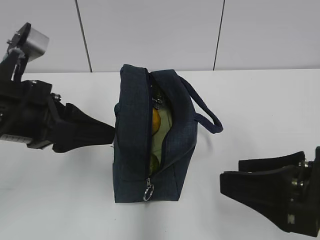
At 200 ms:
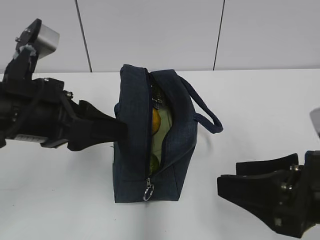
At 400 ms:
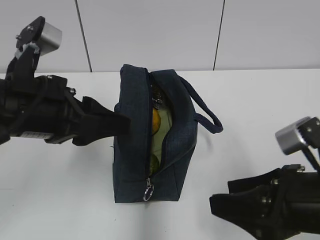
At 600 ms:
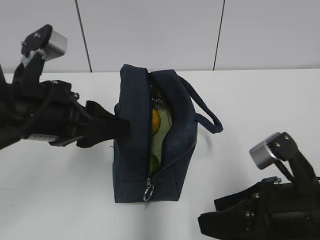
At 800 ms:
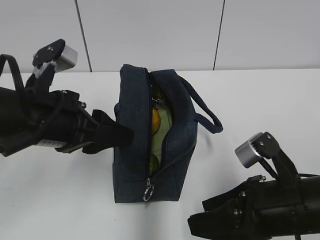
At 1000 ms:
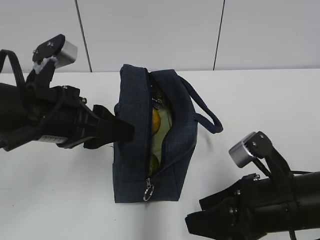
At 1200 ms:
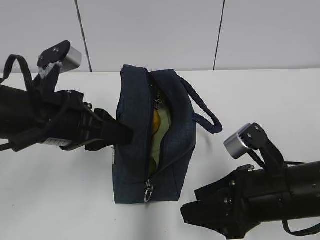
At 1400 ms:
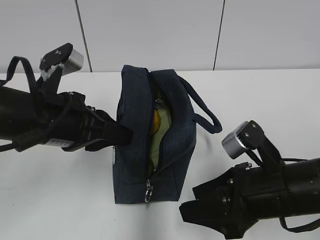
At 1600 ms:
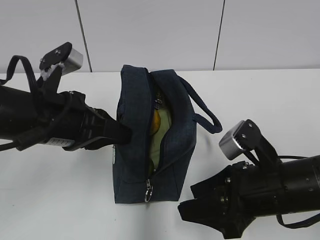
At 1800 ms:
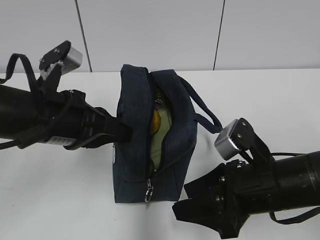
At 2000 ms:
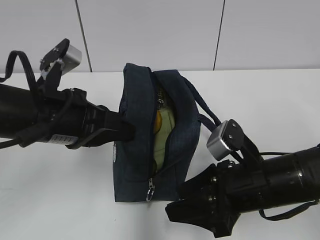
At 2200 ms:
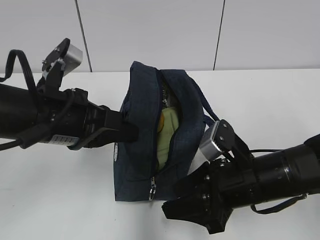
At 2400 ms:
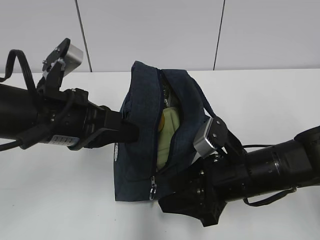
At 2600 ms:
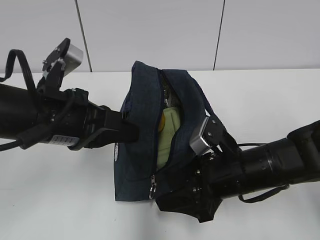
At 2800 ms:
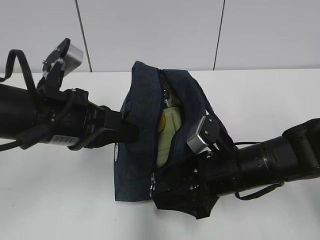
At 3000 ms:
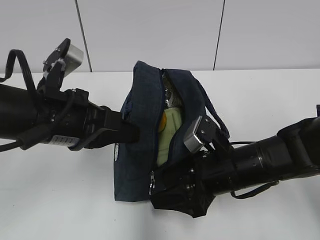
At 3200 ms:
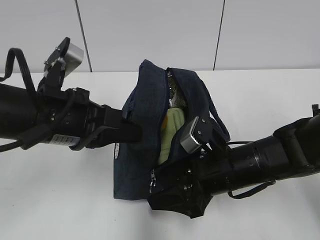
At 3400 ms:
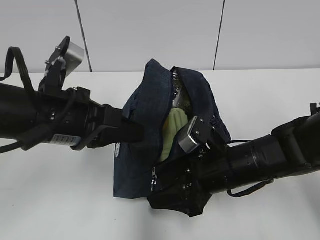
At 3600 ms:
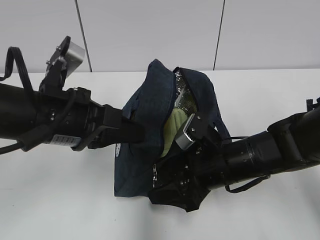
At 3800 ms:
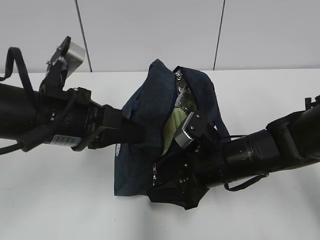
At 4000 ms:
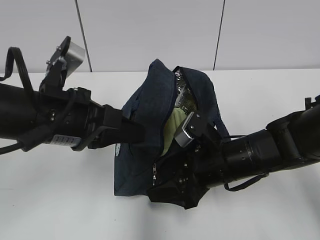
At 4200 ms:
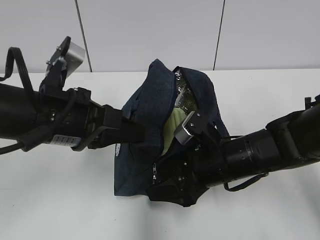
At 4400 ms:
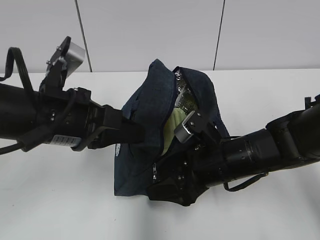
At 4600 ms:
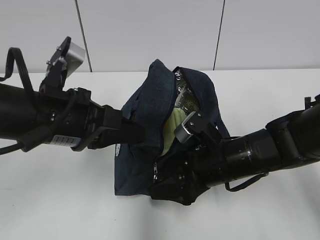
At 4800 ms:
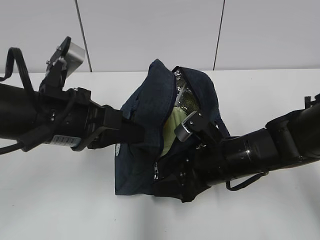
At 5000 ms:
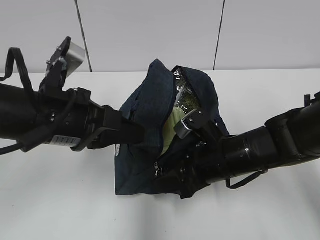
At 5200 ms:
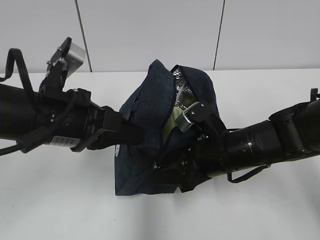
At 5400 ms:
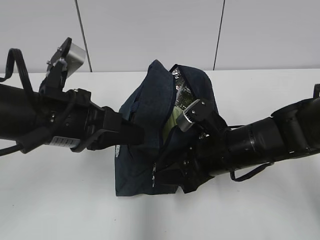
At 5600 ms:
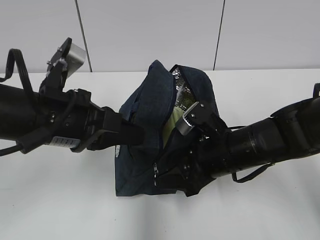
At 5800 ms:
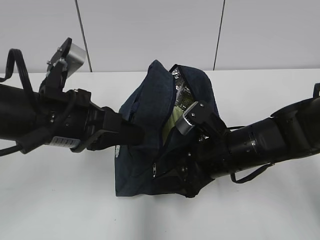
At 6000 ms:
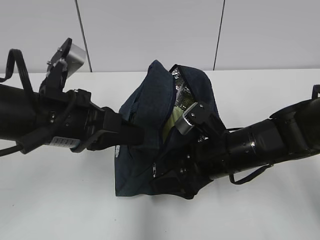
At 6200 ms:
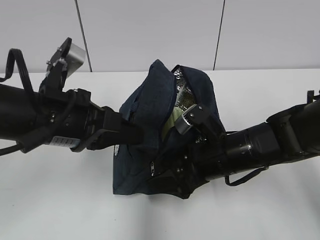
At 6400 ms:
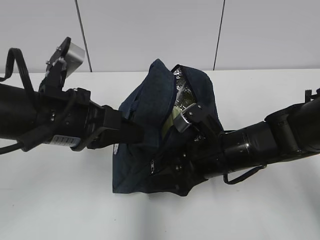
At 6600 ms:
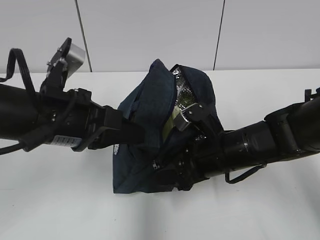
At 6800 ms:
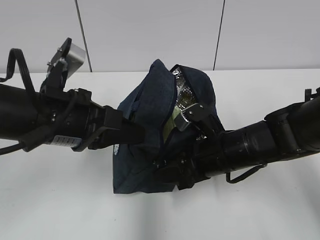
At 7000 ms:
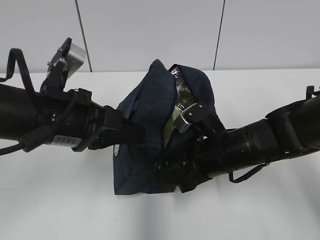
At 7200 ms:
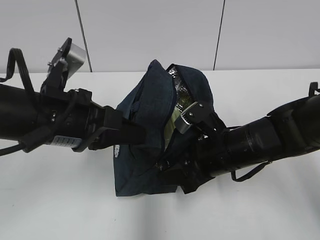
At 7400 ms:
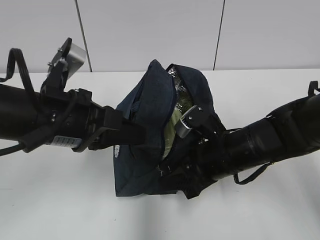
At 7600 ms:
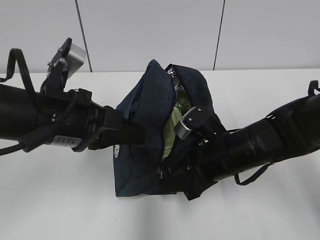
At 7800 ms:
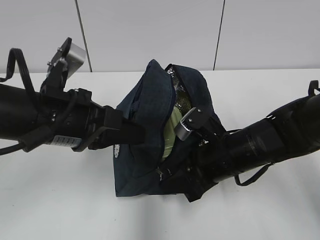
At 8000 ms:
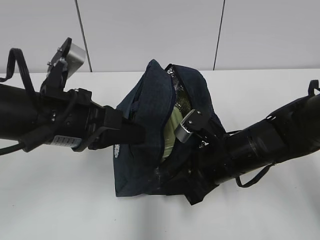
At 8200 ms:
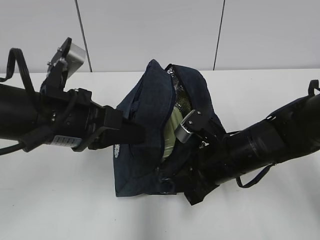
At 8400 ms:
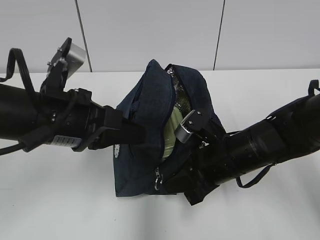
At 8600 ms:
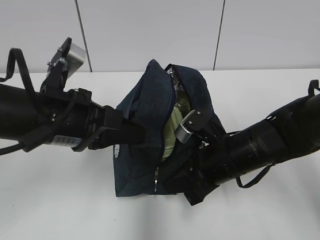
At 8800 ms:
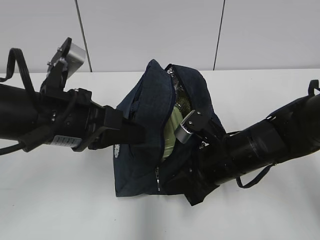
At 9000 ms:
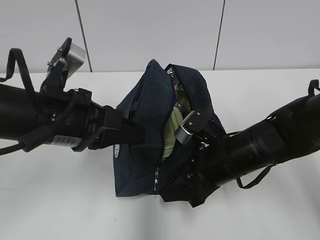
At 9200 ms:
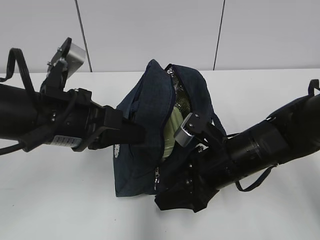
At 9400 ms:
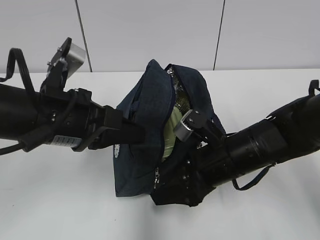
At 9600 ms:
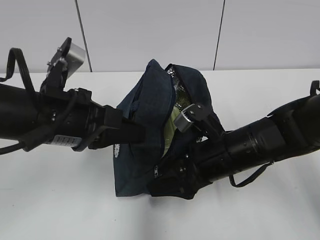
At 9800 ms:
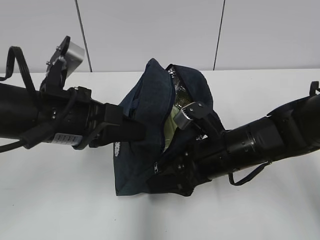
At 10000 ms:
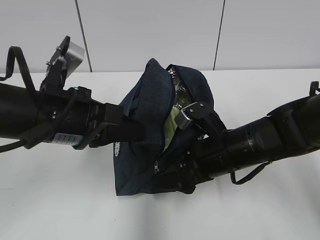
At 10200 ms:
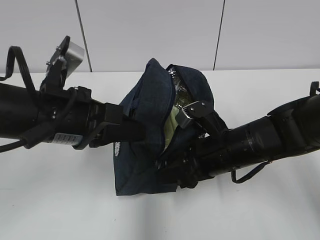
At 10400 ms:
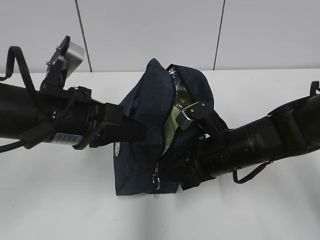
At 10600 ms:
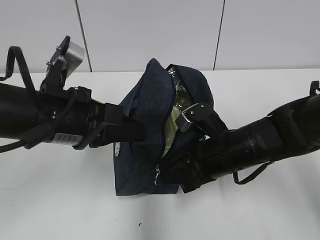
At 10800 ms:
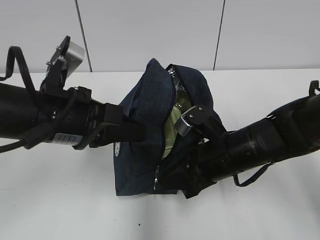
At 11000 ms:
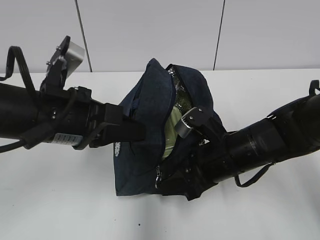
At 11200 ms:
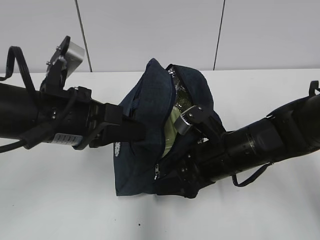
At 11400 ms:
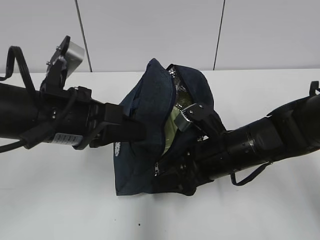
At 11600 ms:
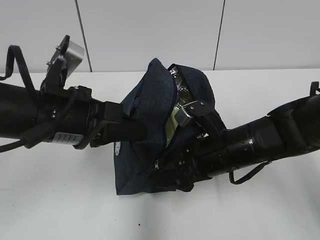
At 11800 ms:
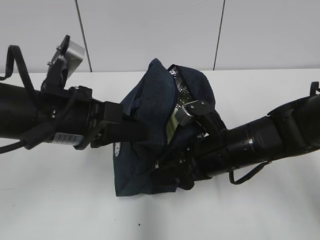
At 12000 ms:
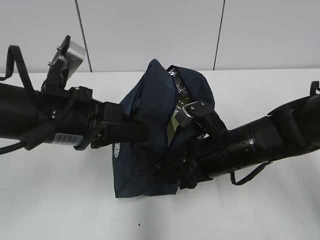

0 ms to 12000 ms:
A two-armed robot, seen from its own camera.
0 ms to 1600 ms: The left gripper closes its fingers. Meanwhile the right gripper travels downward and forward by some 10 cm.
1600 ms to 3000 ms: The right gripper shifts some 5 cm forward.
3000 ms to 6000 ms: The grippers make only small movements.
6000 ms to 7600 ms: The right gripper closes its fingers.
7600 ms to 9000 ms: The right gripper closes, then opens again.
9000 ms to 10400 ms: The grippers move only a little.
10400 ms to 12000 ms: The right gripper opens, then closes once more.

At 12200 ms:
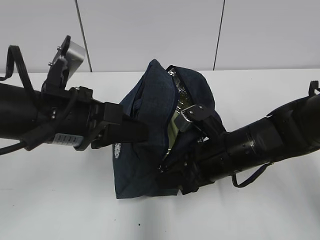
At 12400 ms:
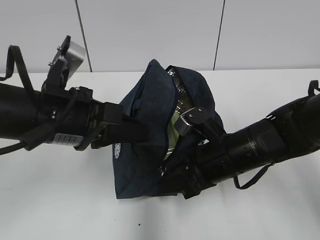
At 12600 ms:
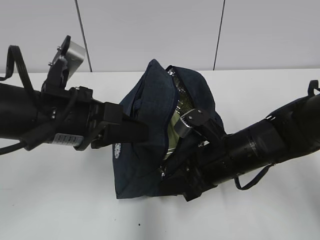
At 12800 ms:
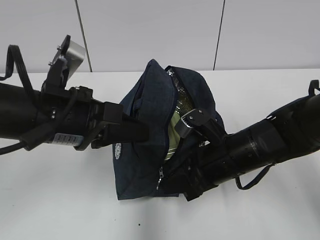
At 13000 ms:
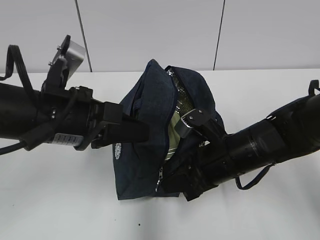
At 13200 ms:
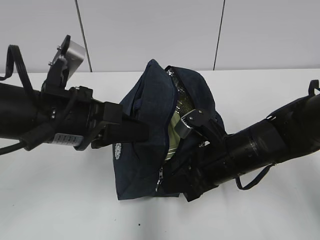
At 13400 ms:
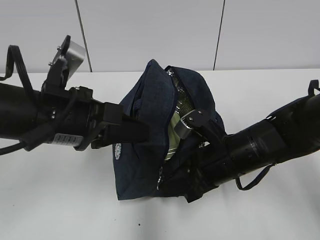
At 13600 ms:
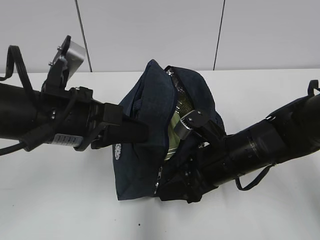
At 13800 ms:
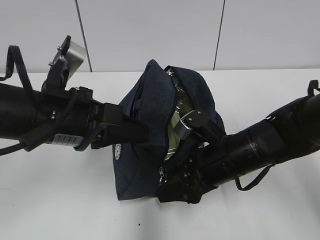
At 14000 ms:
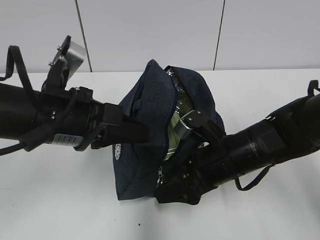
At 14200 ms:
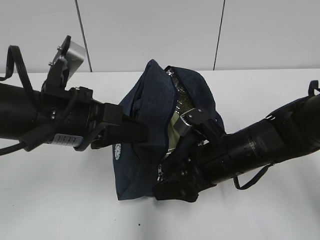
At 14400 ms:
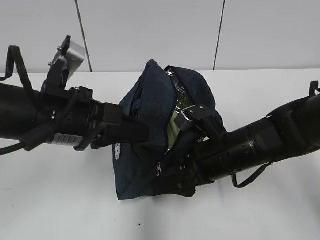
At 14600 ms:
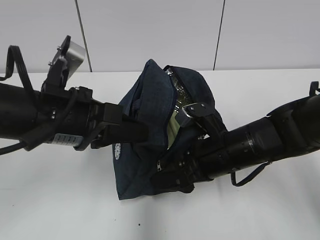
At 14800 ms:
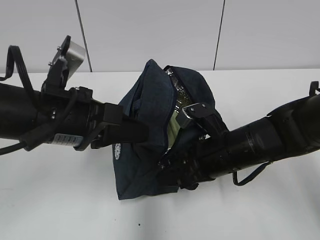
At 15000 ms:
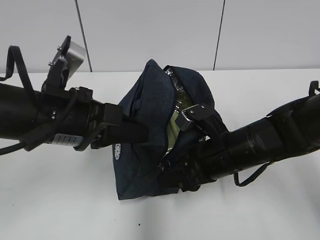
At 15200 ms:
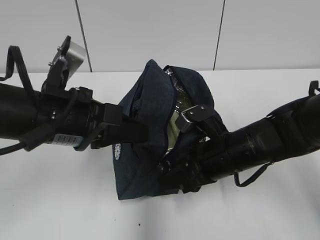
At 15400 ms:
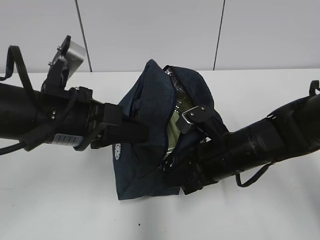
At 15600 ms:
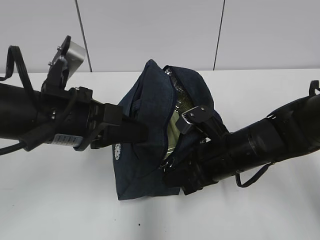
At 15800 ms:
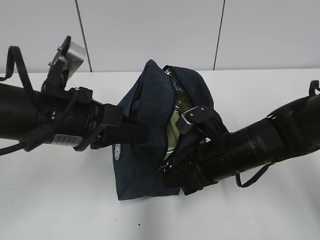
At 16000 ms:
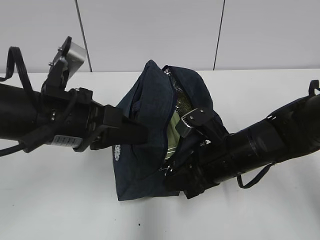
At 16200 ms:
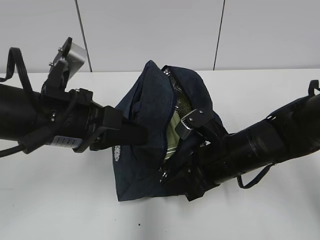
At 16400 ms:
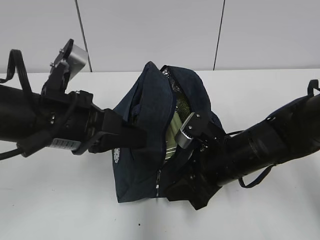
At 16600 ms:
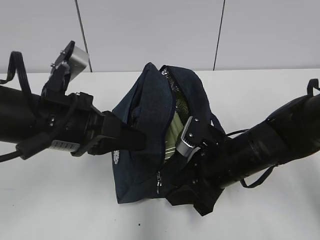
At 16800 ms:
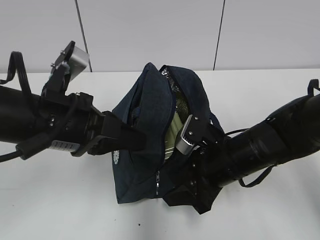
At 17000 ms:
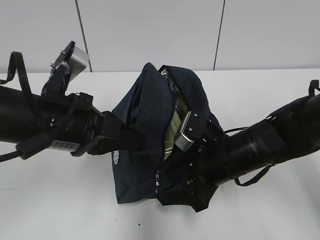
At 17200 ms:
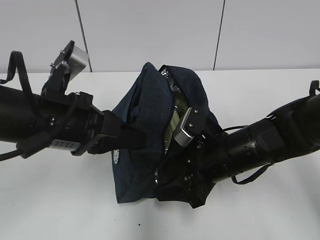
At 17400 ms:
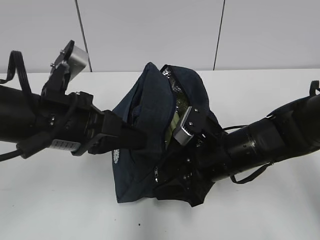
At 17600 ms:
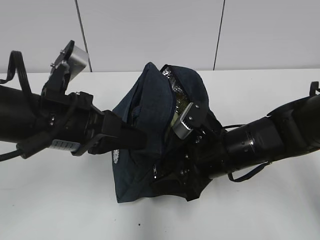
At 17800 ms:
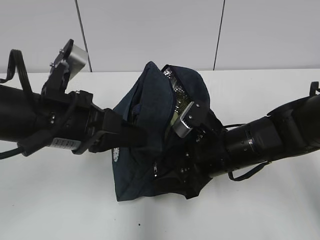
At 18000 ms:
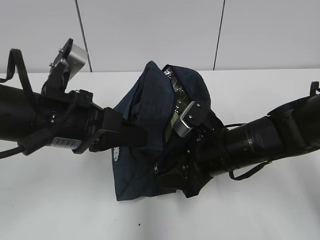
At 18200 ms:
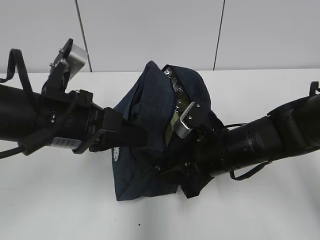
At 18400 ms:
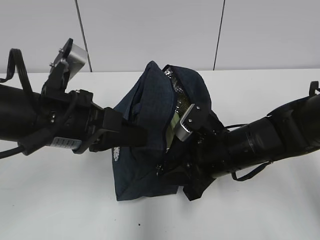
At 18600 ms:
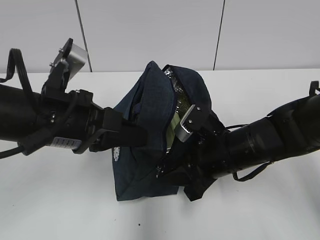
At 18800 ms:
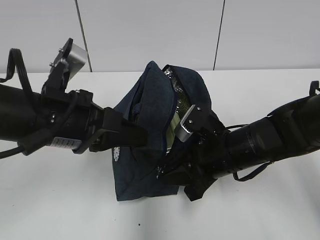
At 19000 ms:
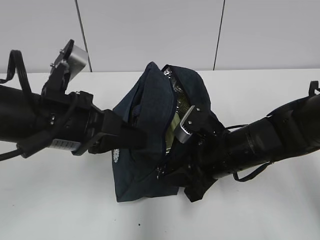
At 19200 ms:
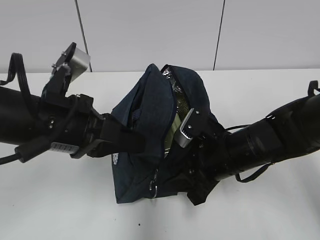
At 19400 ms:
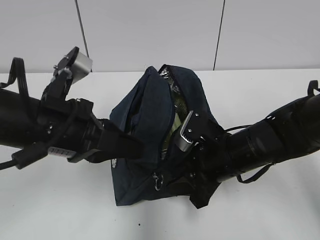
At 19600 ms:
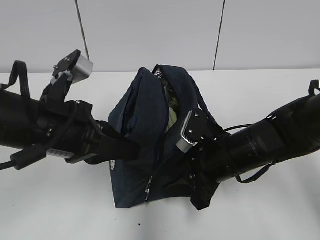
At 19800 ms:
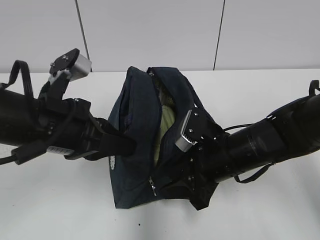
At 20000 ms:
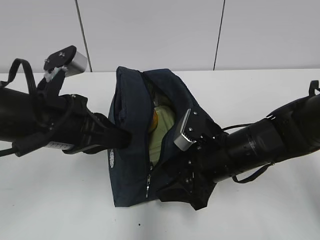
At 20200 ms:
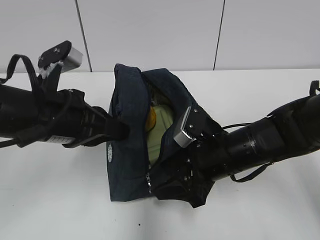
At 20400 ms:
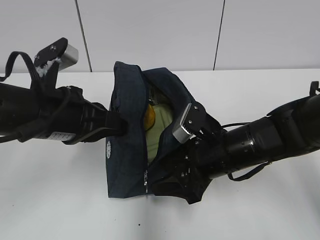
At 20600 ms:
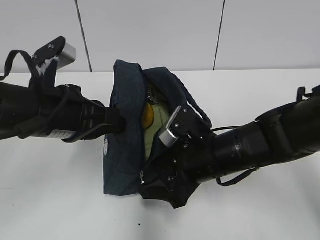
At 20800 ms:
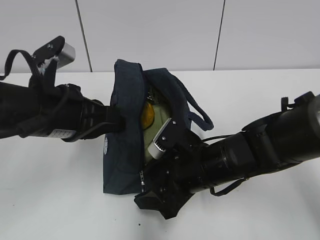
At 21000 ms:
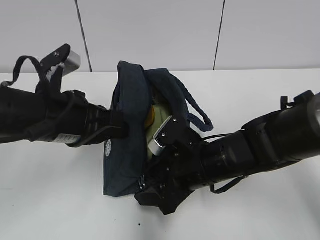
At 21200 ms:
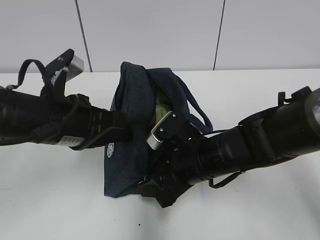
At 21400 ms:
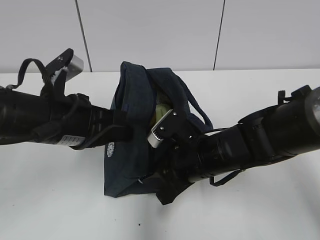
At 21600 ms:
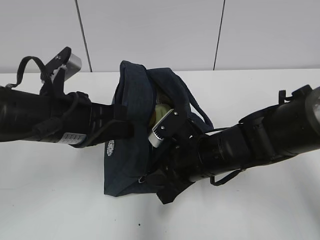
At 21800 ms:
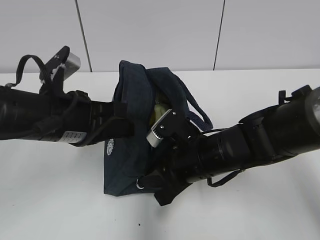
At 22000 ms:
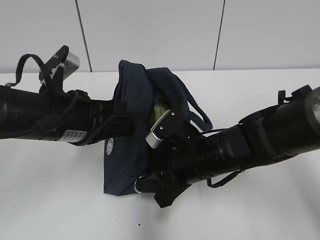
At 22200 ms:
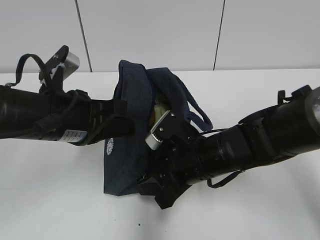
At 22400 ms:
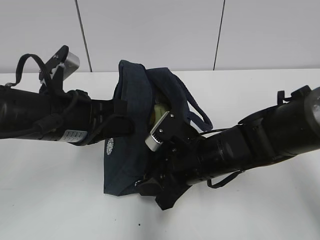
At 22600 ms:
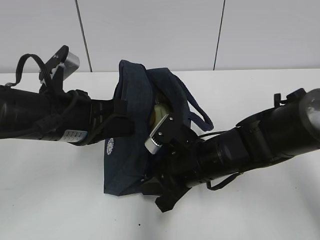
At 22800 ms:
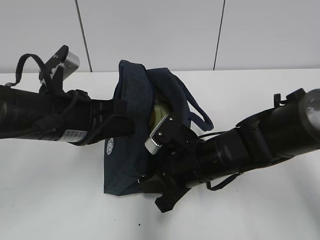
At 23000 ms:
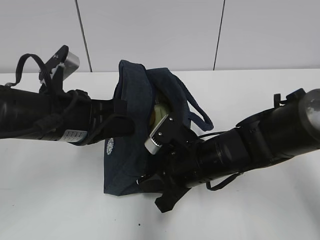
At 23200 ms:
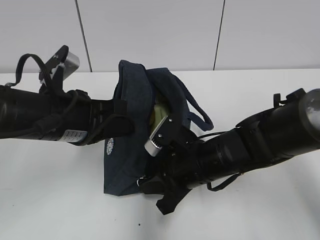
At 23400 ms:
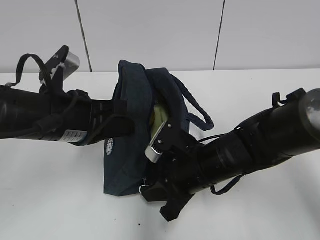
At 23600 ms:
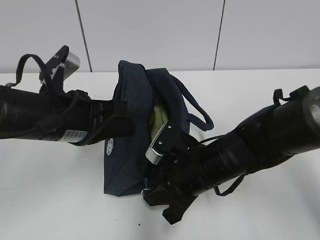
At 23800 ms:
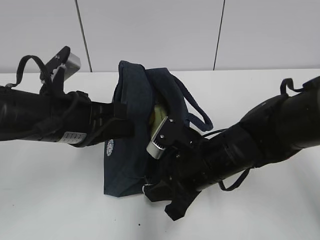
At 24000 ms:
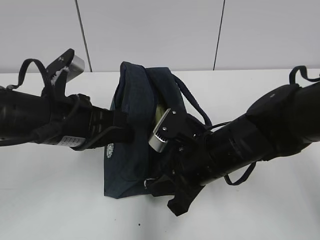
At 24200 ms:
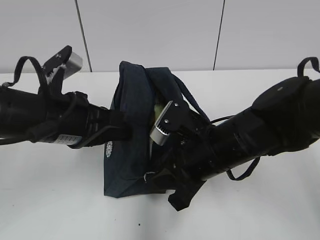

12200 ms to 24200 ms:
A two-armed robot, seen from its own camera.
12200 ms to 13800 ms: The right gripper opens.
13800 ms to 15200 ms: The grippers move only a little.
15200 ms to 16600 ms: The right gripper closes, then reopens.
16600 ms to 21200 ms: The grippers make only small movements.
21200 ms to 22600 ms: The right gripper closes its fingers.
22600 ms to 24200 ms: The right gripper ends up approximately 5 cm from where it was, and closes.
